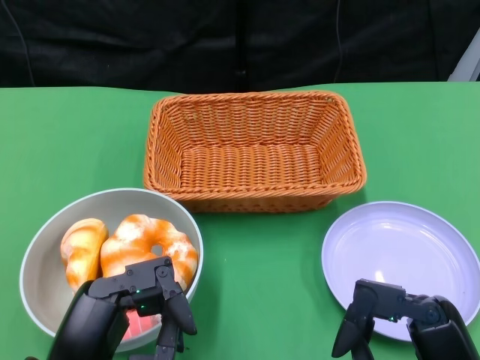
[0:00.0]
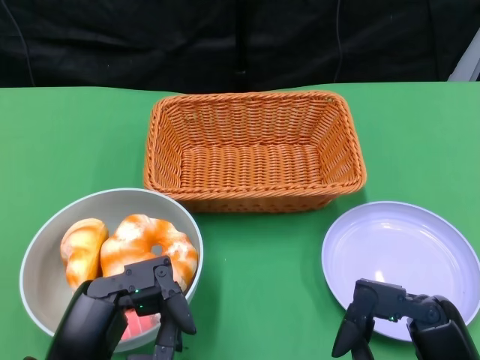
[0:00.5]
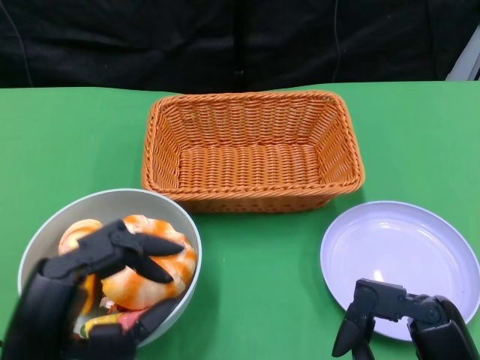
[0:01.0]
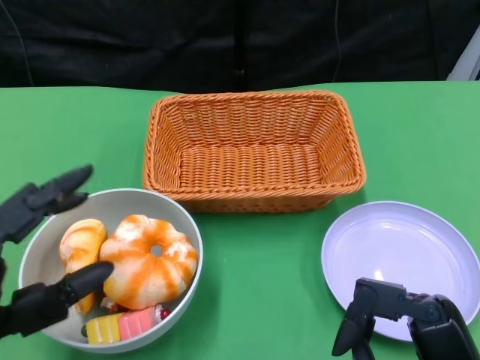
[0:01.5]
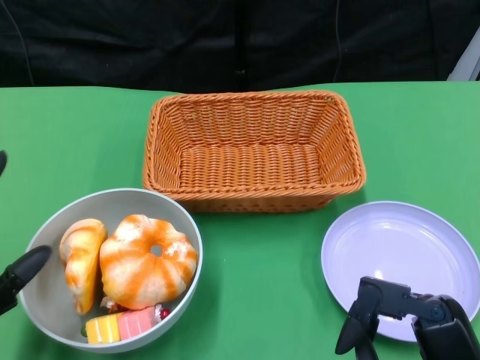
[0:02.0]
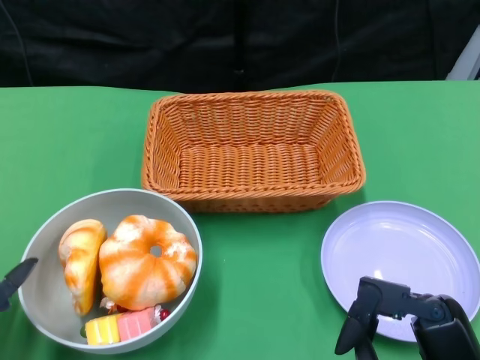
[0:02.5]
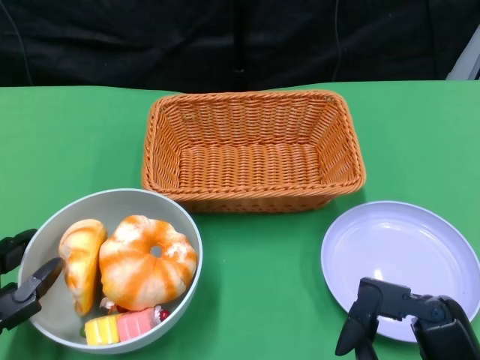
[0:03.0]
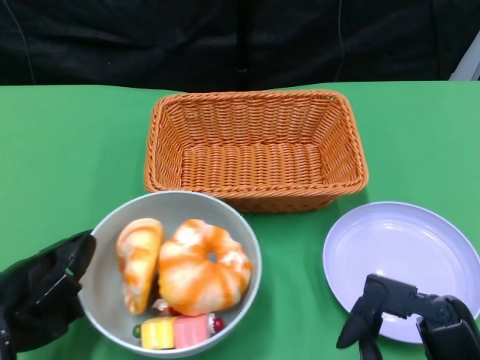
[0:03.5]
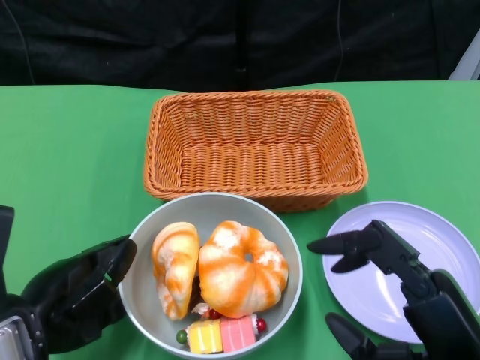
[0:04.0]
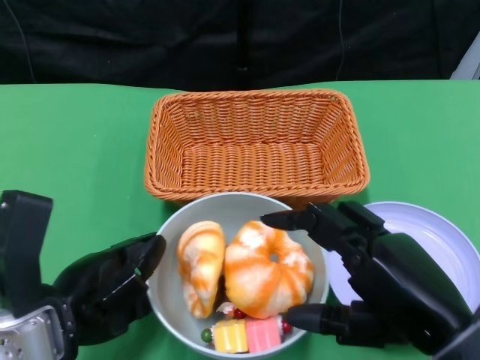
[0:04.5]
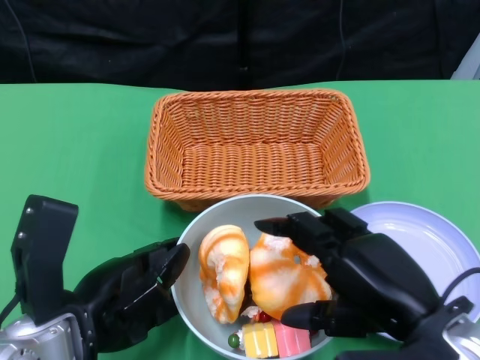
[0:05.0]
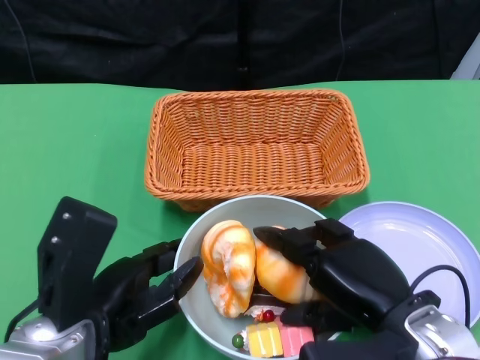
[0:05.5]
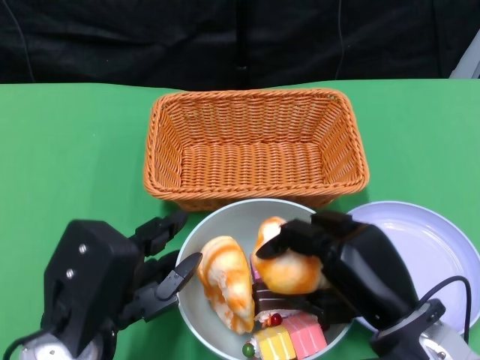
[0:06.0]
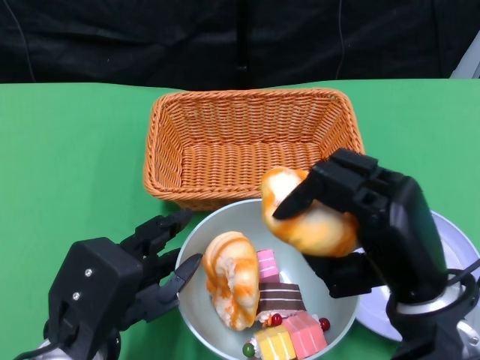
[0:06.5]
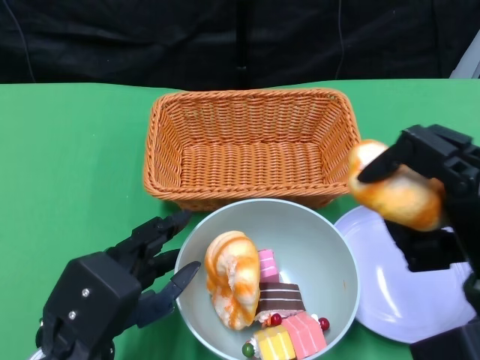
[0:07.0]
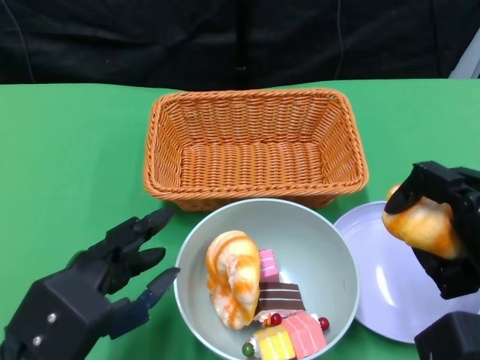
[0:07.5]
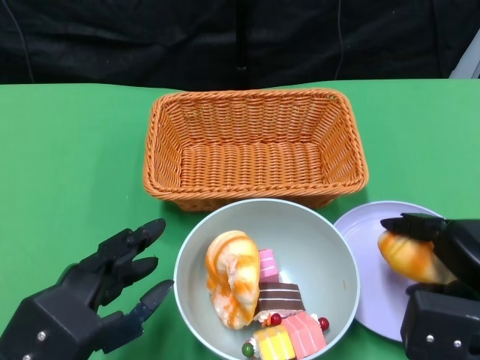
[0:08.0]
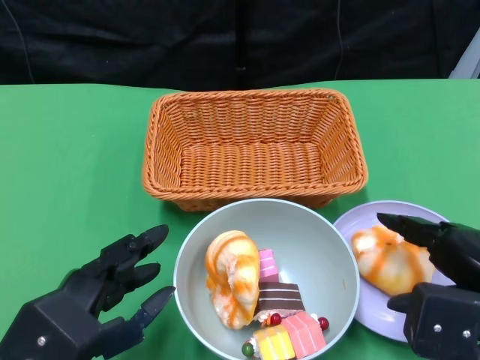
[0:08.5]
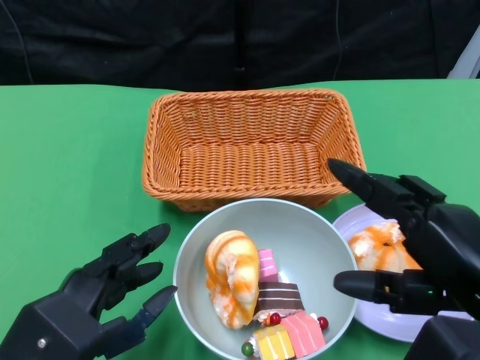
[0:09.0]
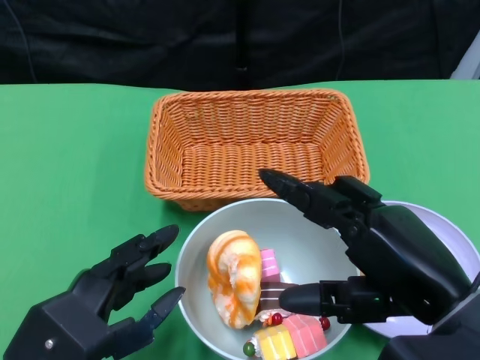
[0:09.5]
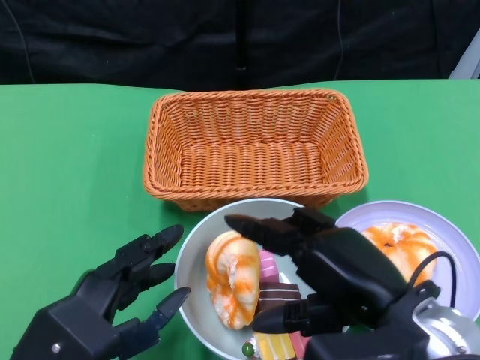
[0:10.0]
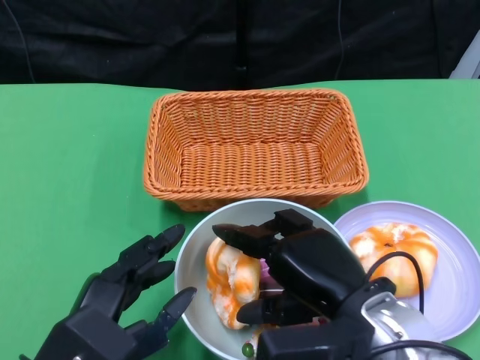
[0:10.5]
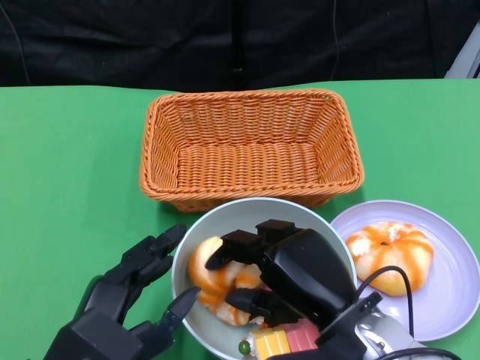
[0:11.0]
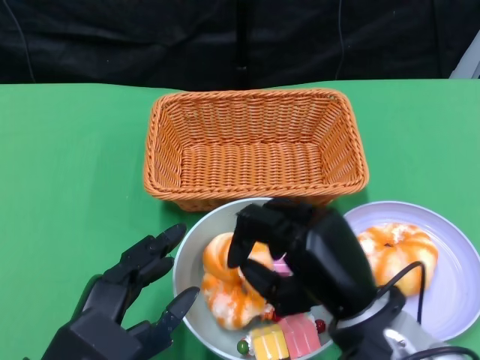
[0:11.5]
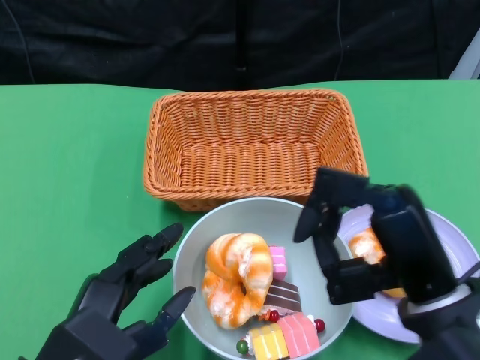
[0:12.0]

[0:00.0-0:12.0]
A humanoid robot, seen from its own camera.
Step, 0.0 to 5.0 s: Push the bowl to the center of the table using the left gripper.
Step, 6.0 to 8.5 s: Pick up the bread with the right gripper and place it on the plate.
2.0 to 4.0 s: The left hand goes about 5 cm forward.
4.0 to 6.0 s: The left hand goes roughly 5 cm to the right. Meanwhile the right hand travels forward by roughly 10 cm.
6.0 to 8.0 s: The right hand goes roughly 10 cm to the right.
8.0 to 10.0 s: The right hand heads to the left, covering approximately 10 cm.

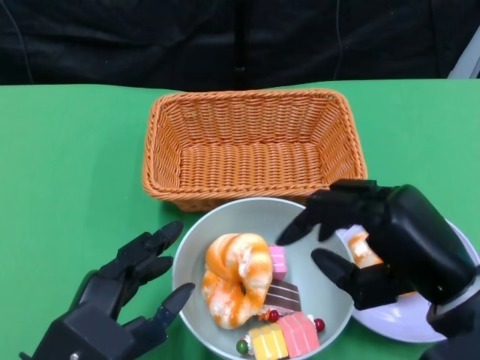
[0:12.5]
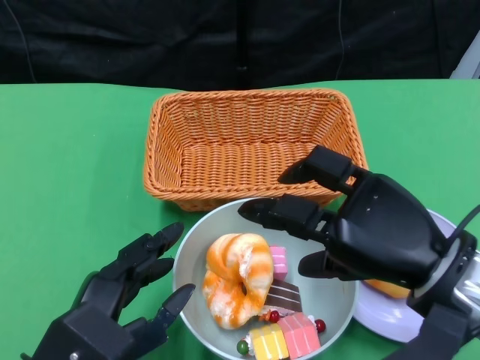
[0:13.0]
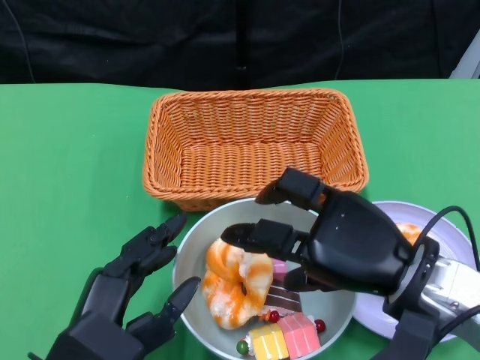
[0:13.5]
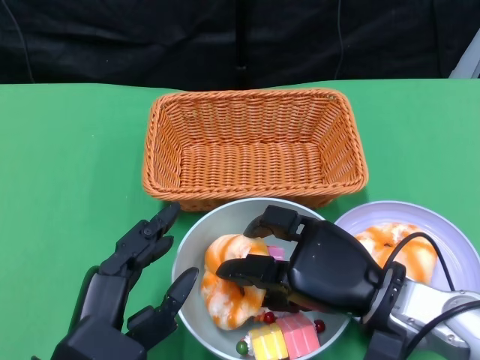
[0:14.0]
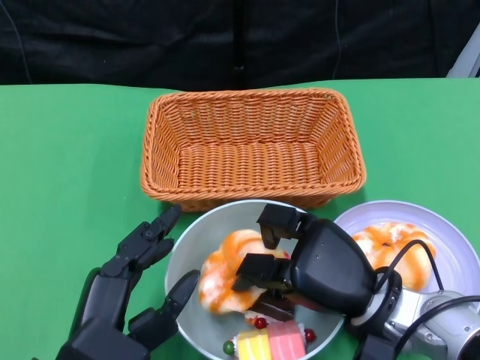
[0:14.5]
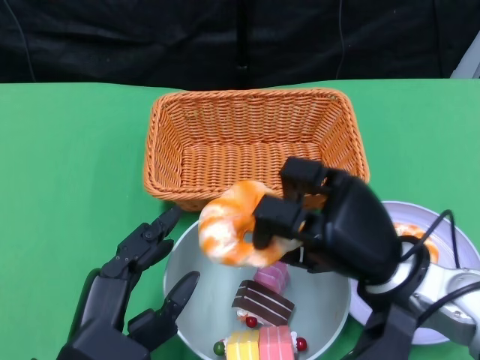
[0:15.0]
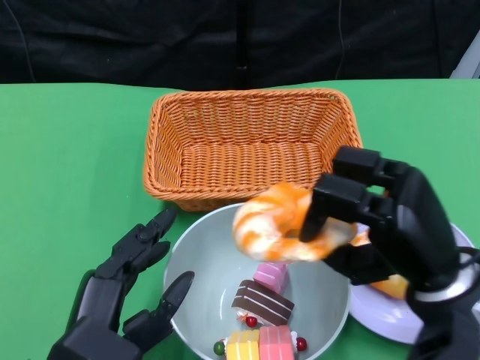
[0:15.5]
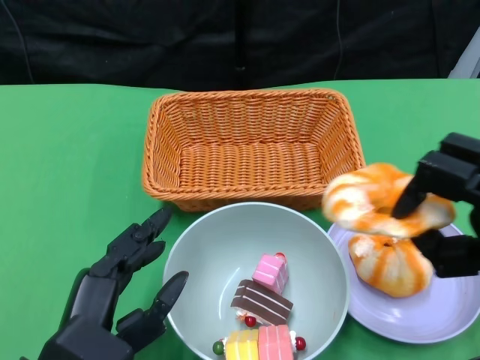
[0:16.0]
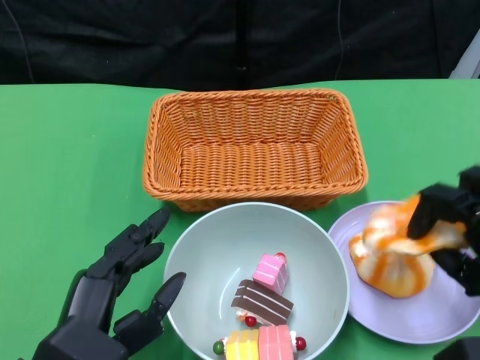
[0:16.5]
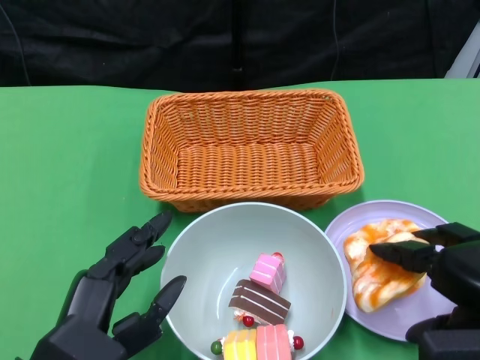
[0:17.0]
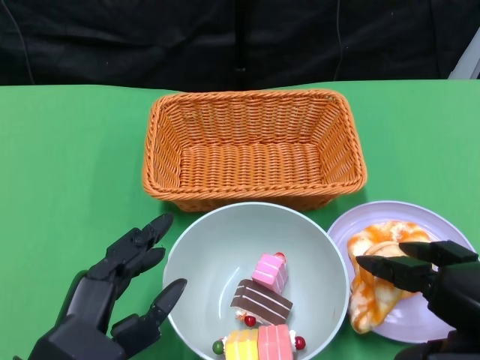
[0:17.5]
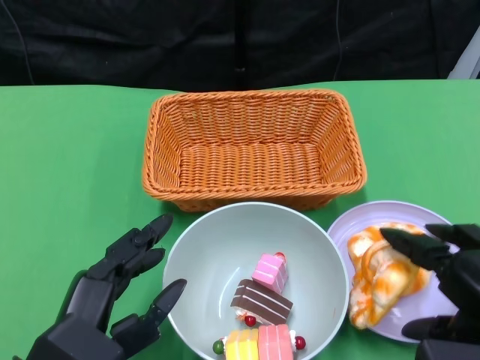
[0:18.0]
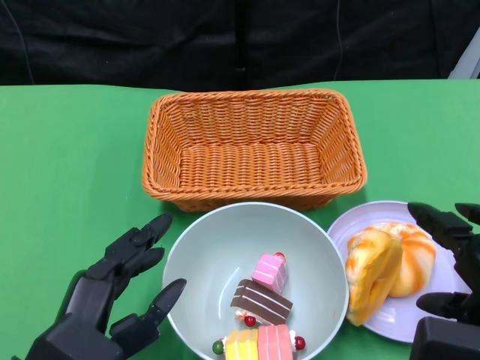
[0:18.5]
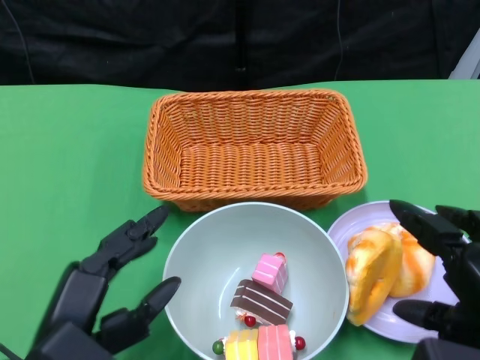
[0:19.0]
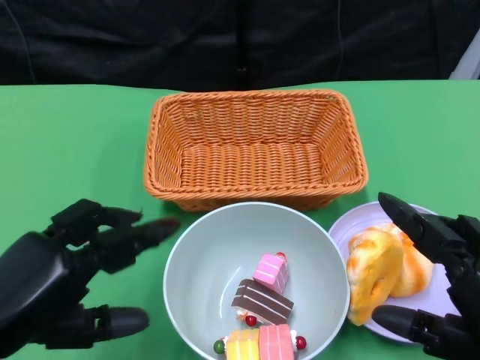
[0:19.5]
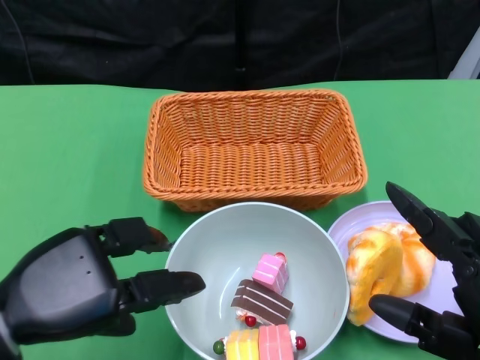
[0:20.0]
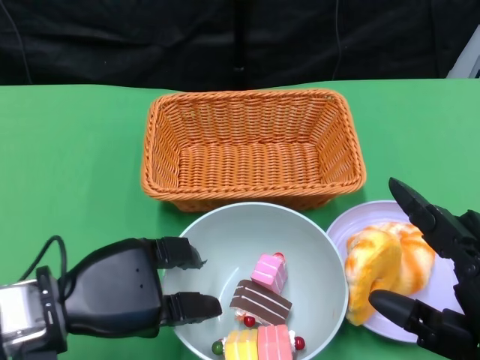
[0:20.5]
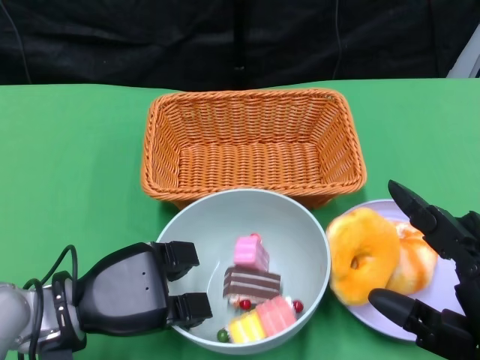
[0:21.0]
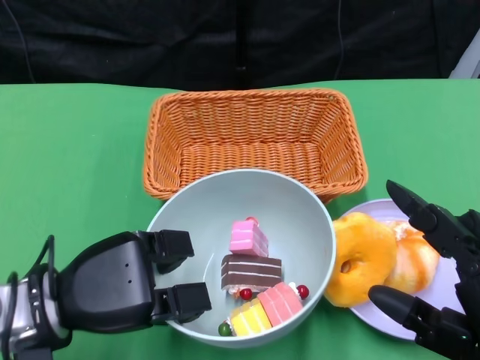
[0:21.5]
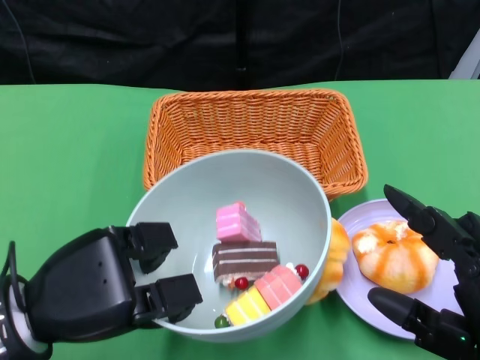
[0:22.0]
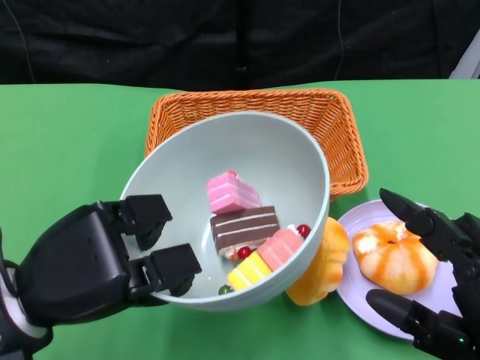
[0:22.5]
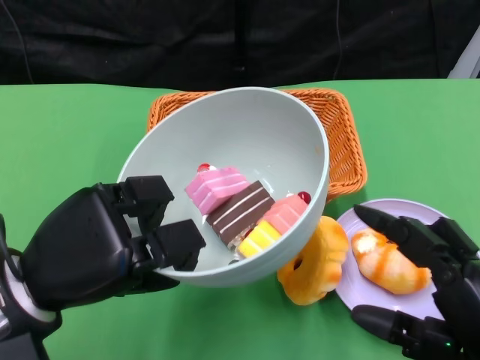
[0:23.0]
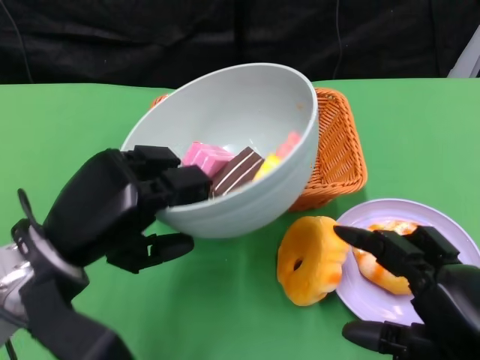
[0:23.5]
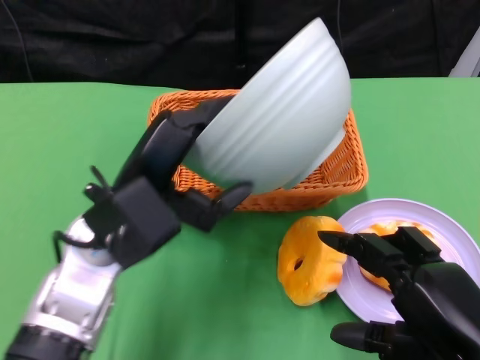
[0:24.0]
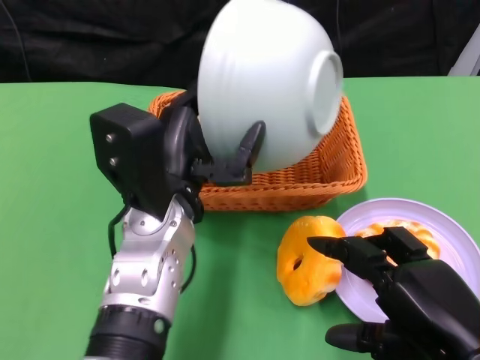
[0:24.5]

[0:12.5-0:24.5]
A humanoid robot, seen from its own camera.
Step, 12.5 to 18.0 s: Pick up the bread with the right gripper and place it on the plate.
Step, 19.0 to 20.5 s: Grasp the bowl with the left gripper.
12.5 to 14.5 s: The right hand moves downward and to the left, approximately 10 cm.
14.5 to 16.5 s: The right hand moves to the right and upward, roughly 15 cm.
16.5 to 18.5 s: The right hand moves about 5 cm.
18.5 to 20.5 s: The left hand is displaced forward by some 10 cm.
22.5 to 24.5 s: The left hand goes some 15 cm to the right and forward.

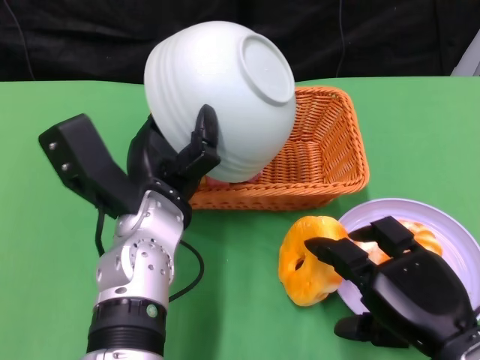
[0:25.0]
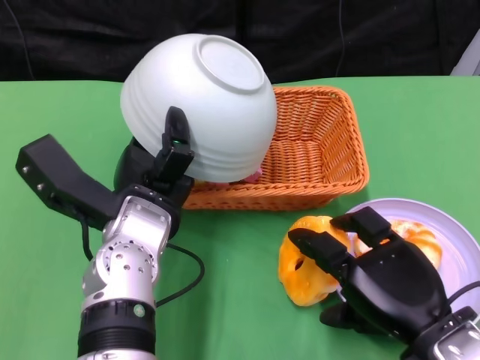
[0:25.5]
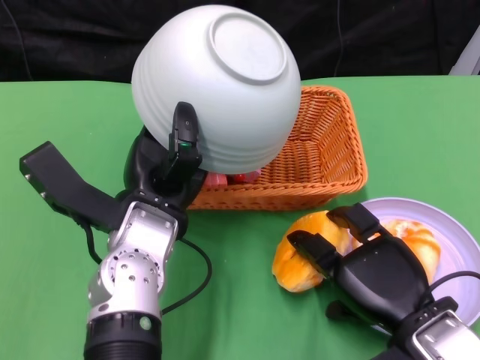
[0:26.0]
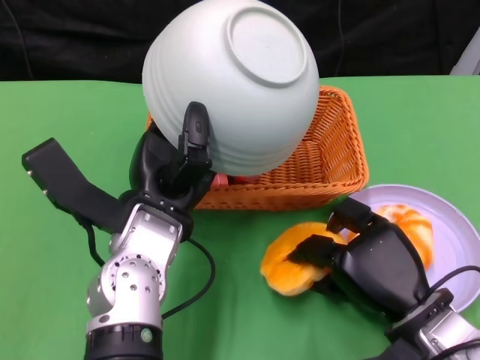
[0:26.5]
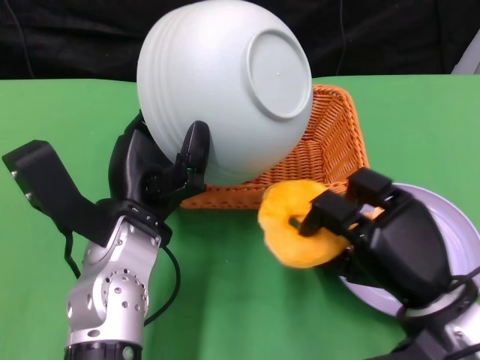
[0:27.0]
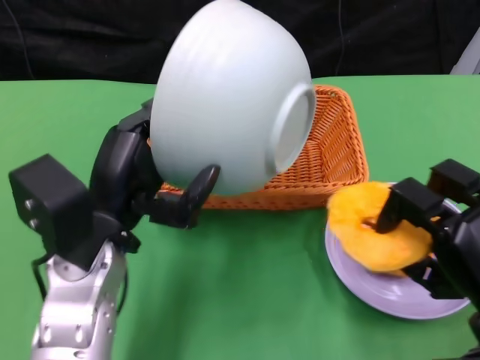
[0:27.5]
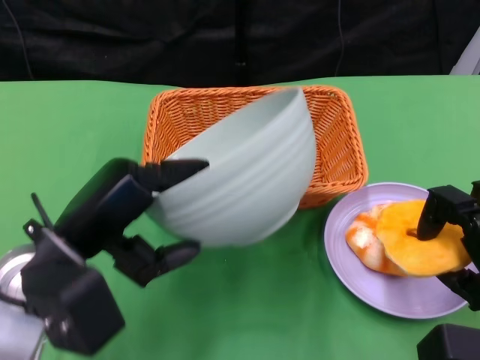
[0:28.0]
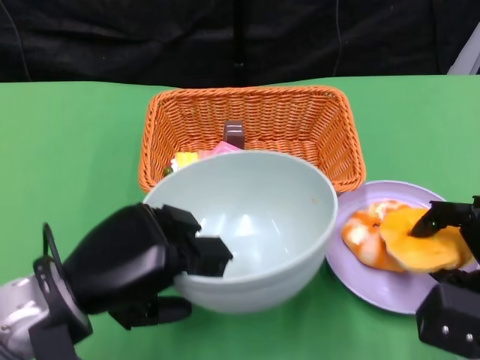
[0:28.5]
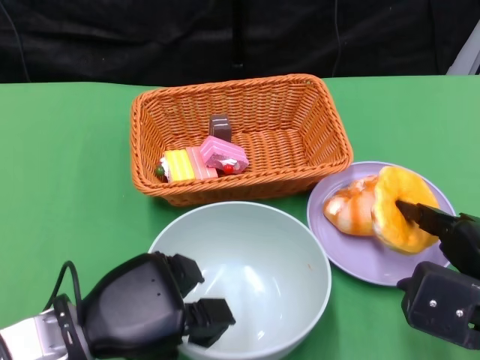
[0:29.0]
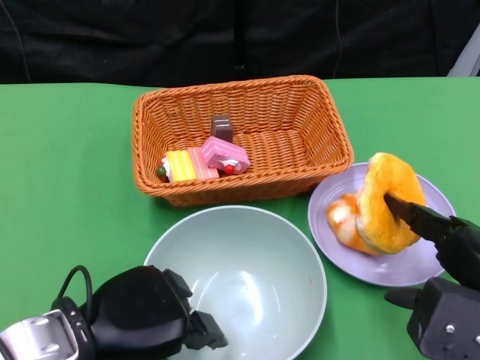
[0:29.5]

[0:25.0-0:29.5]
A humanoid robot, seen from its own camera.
25.0 to 27.0 s: The right hand heads forward, covering about 5 cm.
27.0 to 29.5 s: The left hand moves backward and to the left, roughly 10 cm; the right hand shifts some 10 cm to the right and upward.
